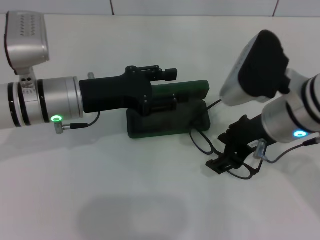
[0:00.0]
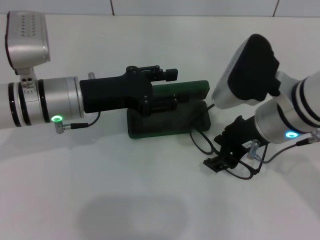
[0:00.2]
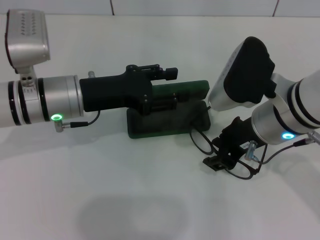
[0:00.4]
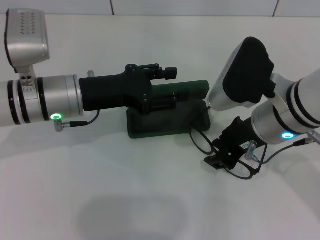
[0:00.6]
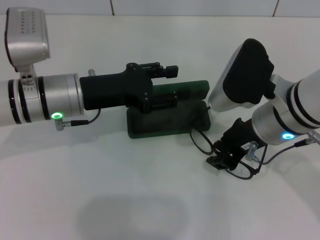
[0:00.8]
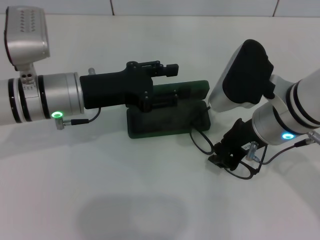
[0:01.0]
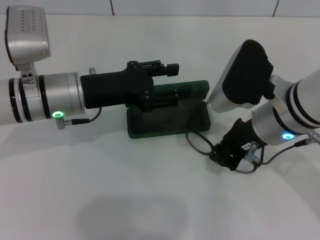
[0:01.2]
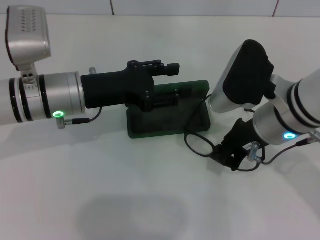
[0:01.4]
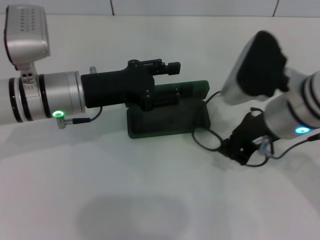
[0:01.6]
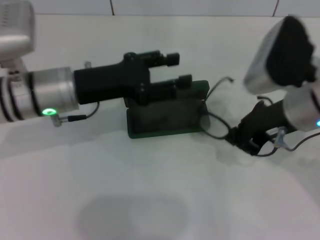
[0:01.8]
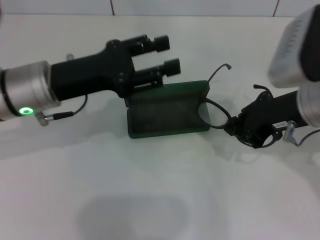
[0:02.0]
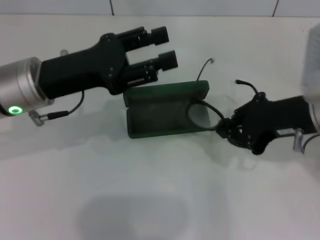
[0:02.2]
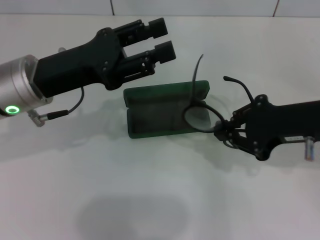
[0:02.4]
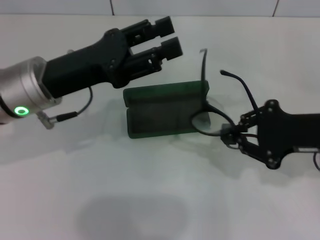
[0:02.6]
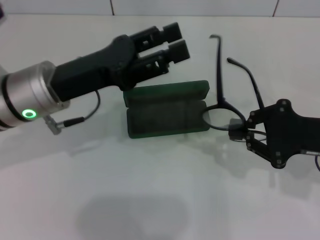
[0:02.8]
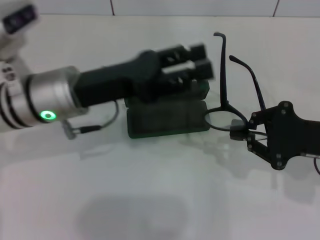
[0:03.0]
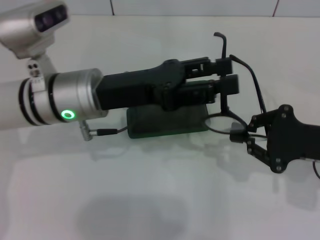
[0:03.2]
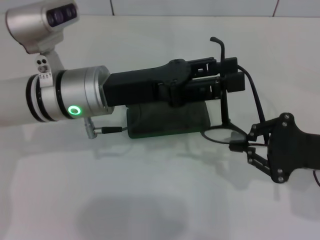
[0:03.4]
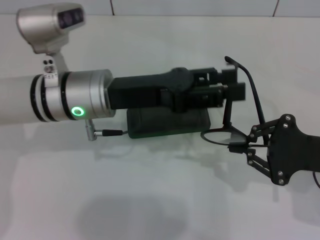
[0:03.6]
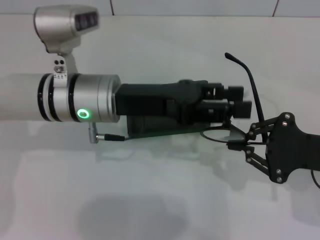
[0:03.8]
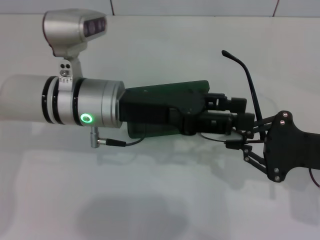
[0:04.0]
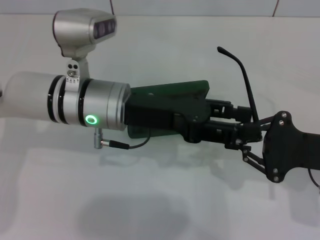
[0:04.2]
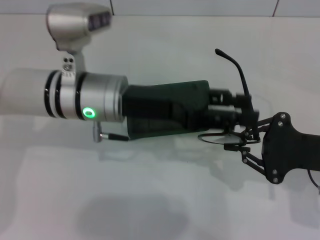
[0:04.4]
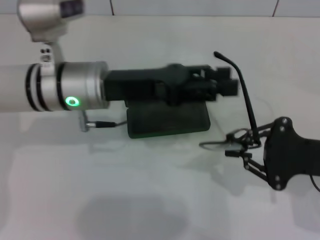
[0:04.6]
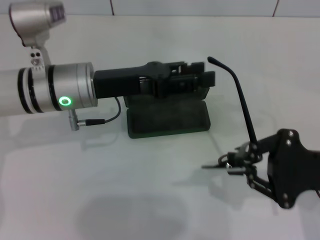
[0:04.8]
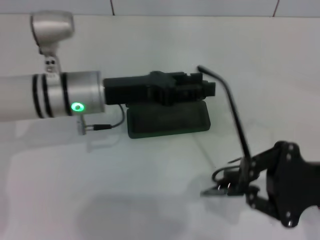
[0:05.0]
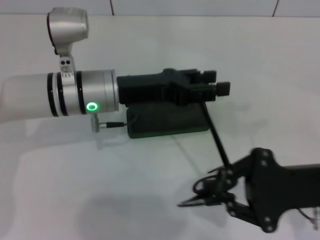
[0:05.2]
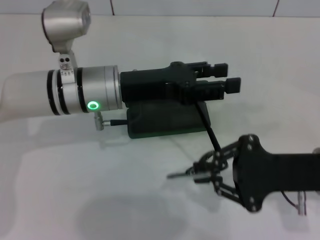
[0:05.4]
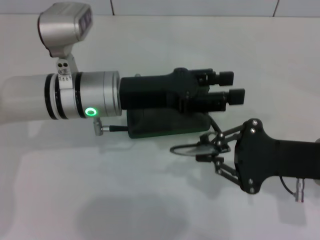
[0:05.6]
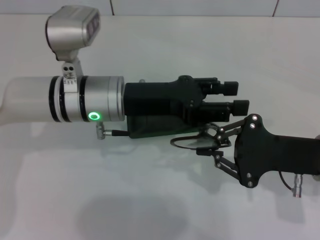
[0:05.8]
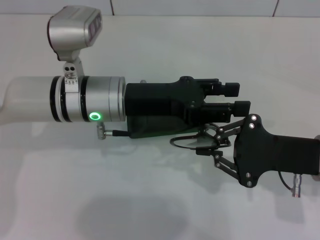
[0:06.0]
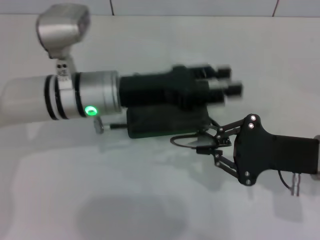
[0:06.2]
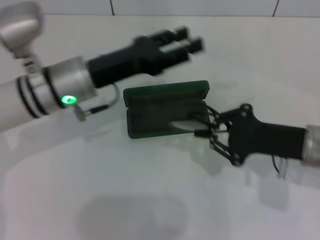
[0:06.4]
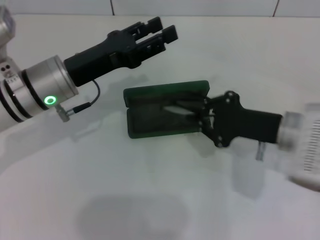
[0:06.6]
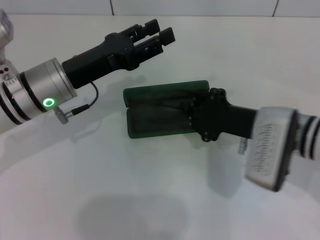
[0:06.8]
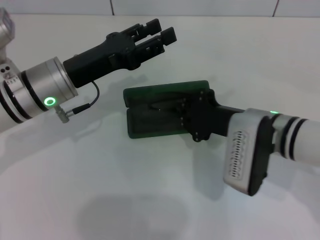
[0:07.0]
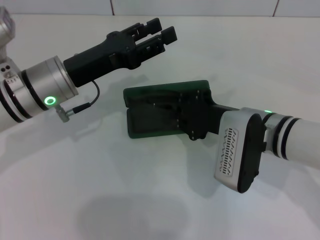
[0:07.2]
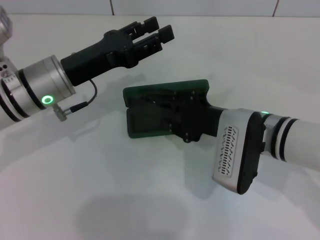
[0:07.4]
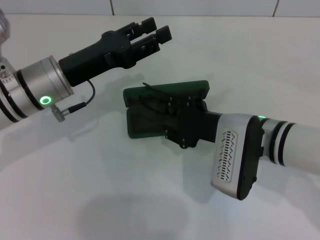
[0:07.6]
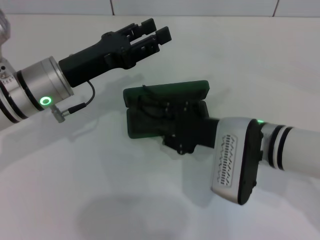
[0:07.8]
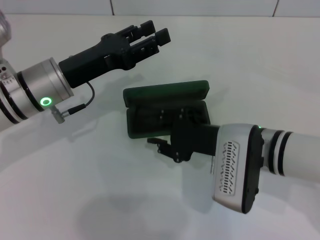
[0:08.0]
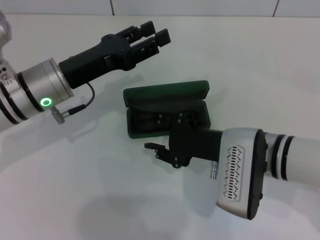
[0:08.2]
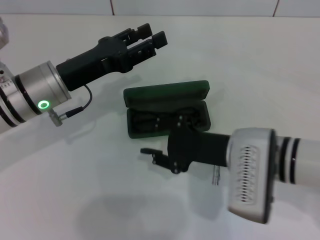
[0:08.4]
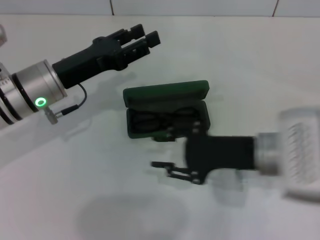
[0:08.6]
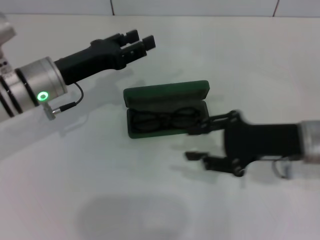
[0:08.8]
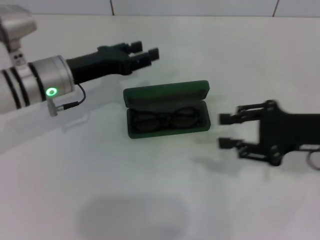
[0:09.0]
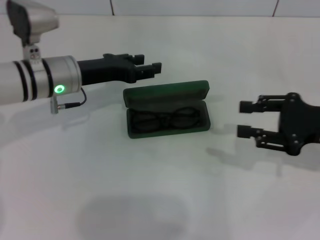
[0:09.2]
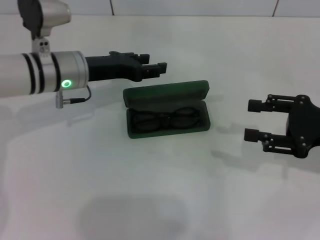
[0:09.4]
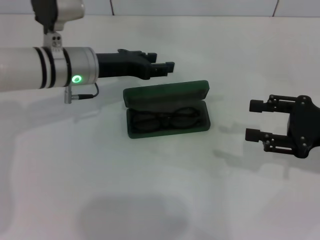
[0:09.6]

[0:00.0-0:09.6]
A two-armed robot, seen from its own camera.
Step, 1.4 to 6.0 s: Fold the frame with your left hand.
Step, 6.2 to 8.0 s: Put the glasses into the case with your right hand.
0.0 to 1.6 s: The right gripper closes its fingers.
1.6 to 3.2 s: The right gripper travels to the right and downward by about 15 cm.
4.8 to 6.4 s: The right gripper changes place by approximately 5 cm.
6.4 to 8.0 s: The right gripper shifts roughly 10 cm to the left, and opens.
8.0 to 9.6 s: The left gripper shifts approximately 5 cm forward; the right gripper heads to the right, covering roughly 20 cm.

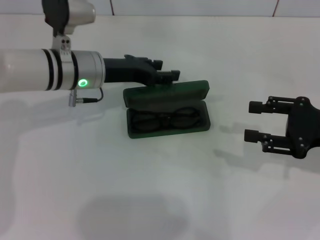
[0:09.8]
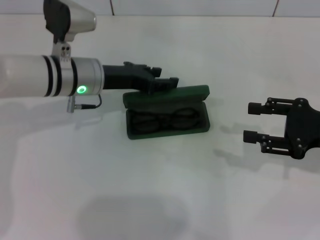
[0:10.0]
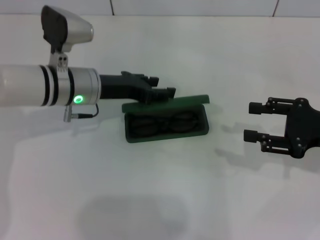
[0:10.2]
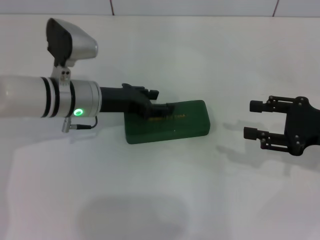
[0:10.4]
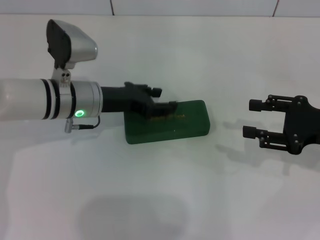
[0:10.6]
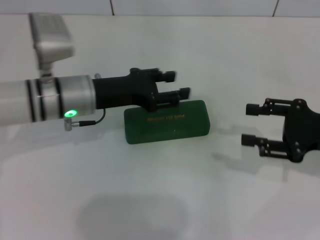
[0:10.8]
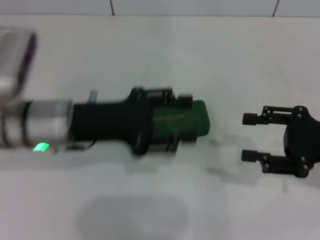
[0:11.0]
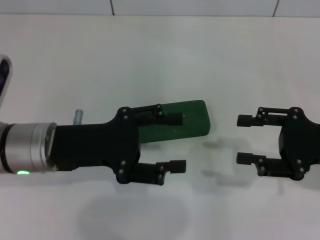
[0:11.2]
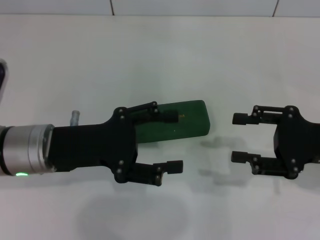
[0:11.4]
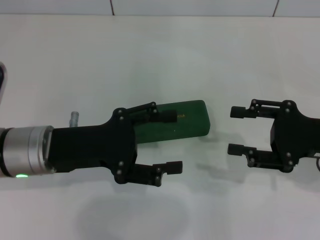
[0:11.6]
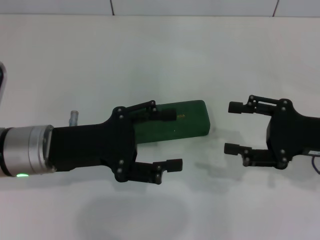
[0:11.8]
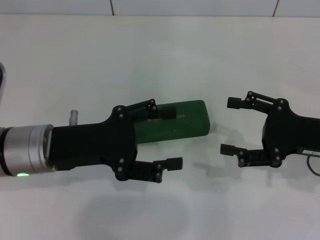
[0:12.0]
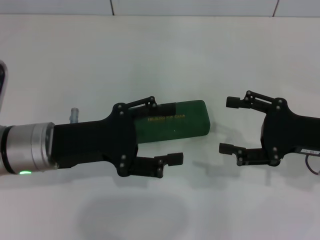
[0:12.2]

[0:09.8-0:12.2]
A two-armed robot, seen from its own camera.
9.8 to 11.0 s: The left gripper travels backward by about 10 cm.
11.0 to 12.2 s: The left gripper opens.

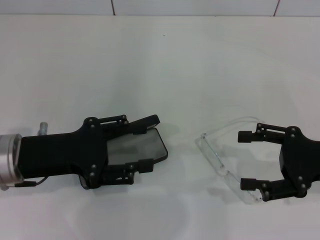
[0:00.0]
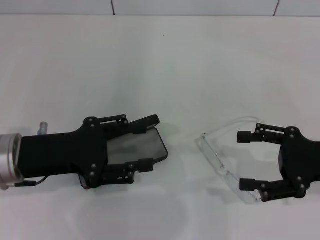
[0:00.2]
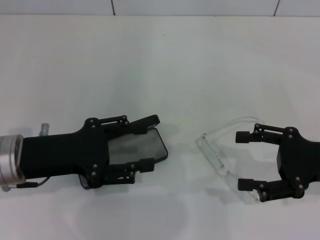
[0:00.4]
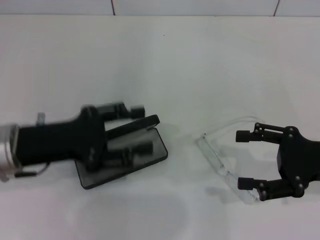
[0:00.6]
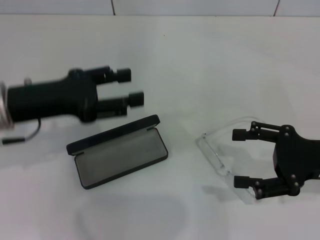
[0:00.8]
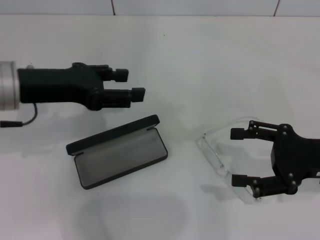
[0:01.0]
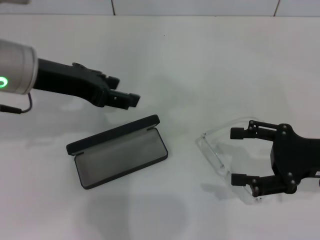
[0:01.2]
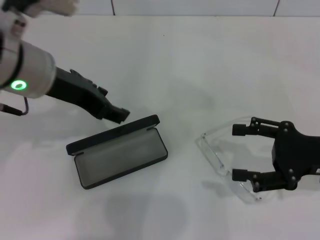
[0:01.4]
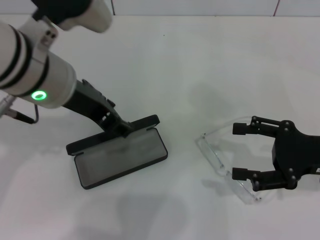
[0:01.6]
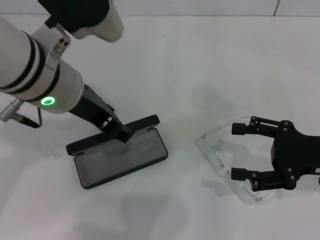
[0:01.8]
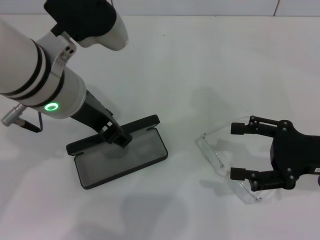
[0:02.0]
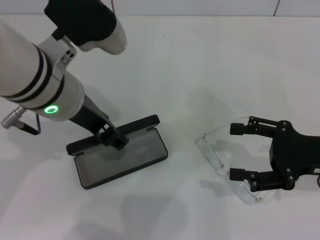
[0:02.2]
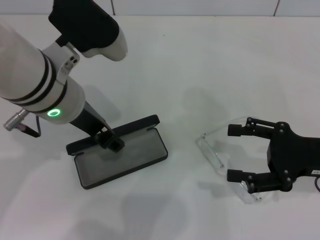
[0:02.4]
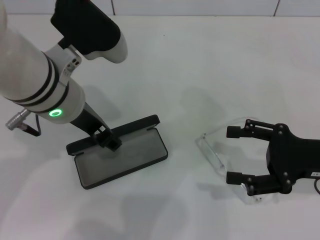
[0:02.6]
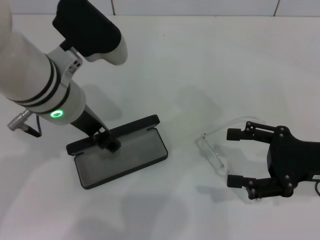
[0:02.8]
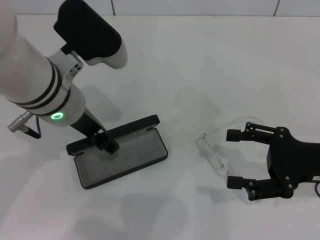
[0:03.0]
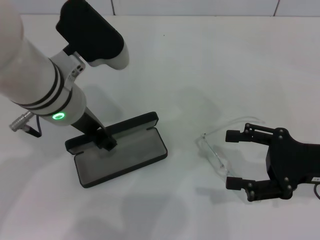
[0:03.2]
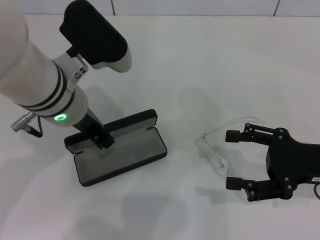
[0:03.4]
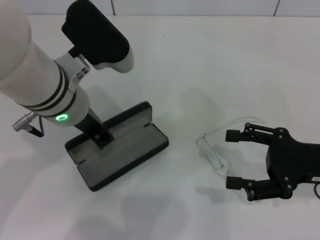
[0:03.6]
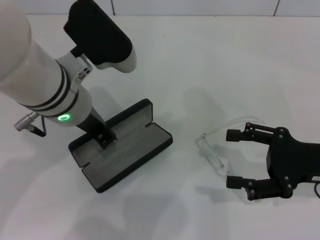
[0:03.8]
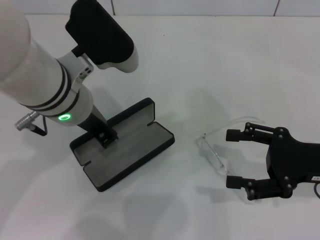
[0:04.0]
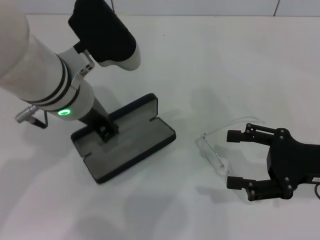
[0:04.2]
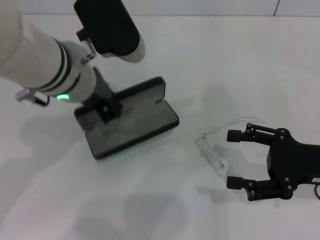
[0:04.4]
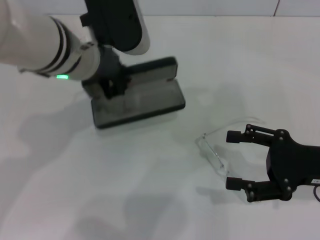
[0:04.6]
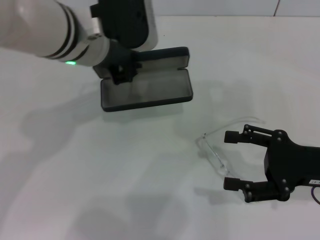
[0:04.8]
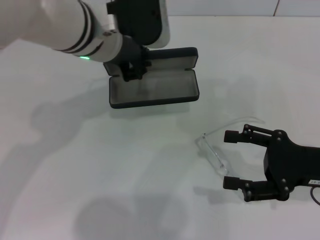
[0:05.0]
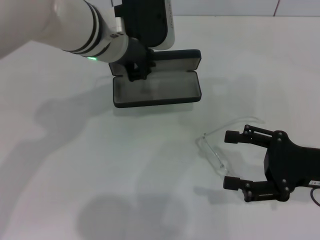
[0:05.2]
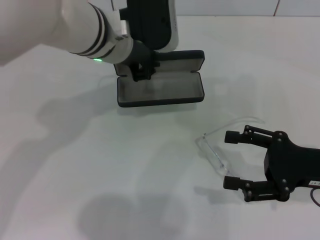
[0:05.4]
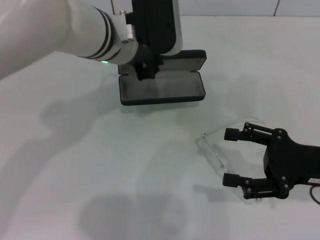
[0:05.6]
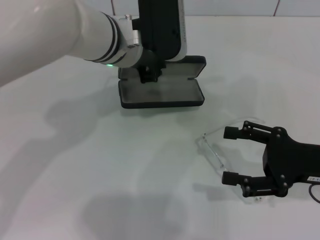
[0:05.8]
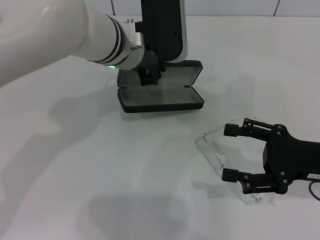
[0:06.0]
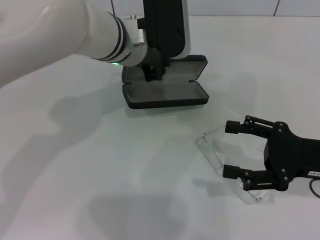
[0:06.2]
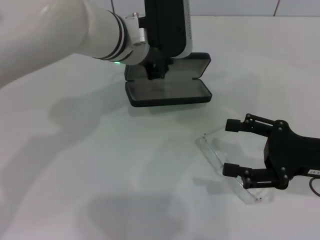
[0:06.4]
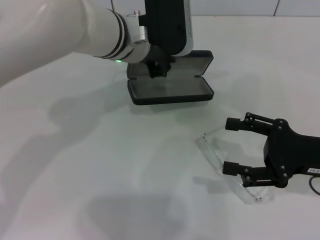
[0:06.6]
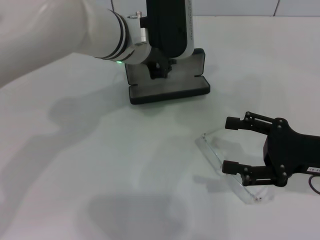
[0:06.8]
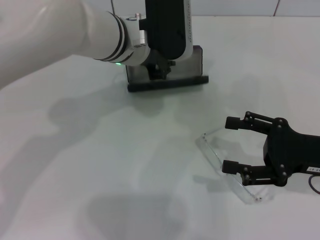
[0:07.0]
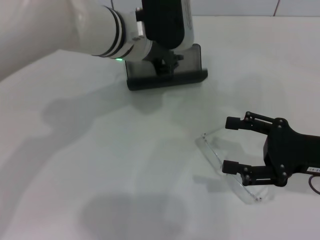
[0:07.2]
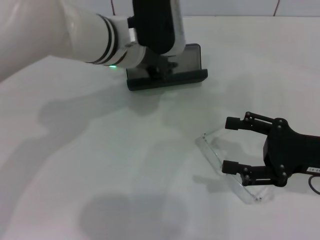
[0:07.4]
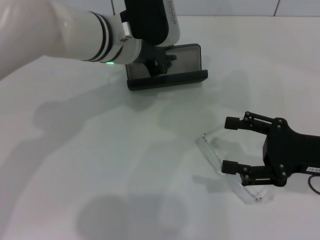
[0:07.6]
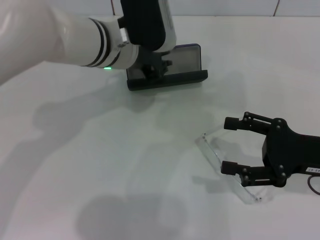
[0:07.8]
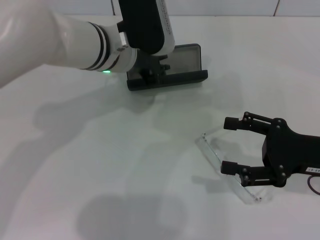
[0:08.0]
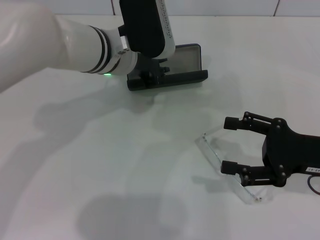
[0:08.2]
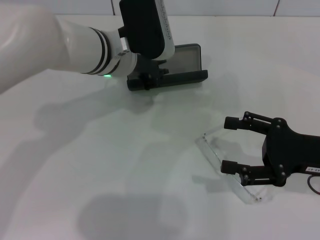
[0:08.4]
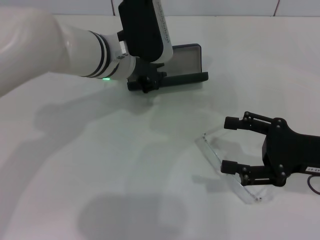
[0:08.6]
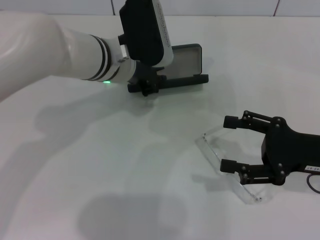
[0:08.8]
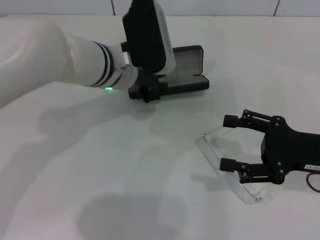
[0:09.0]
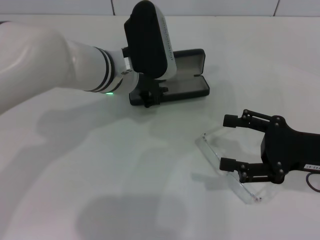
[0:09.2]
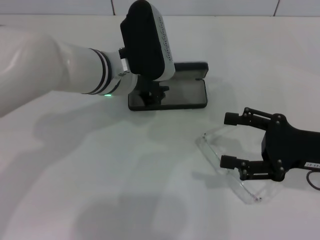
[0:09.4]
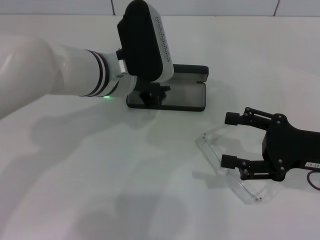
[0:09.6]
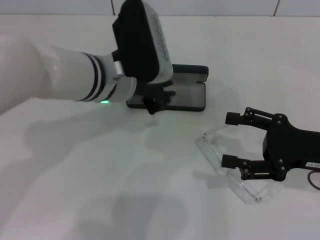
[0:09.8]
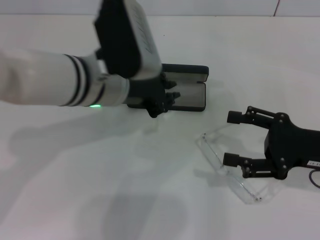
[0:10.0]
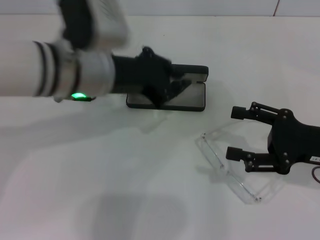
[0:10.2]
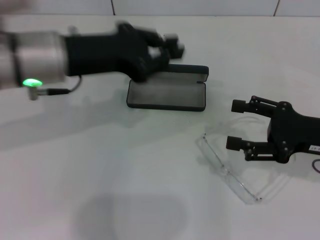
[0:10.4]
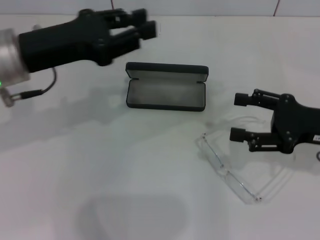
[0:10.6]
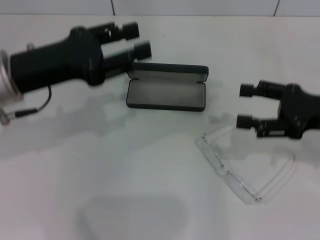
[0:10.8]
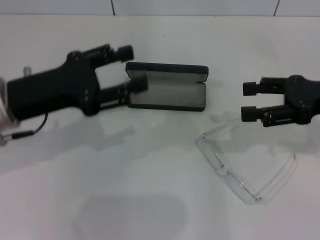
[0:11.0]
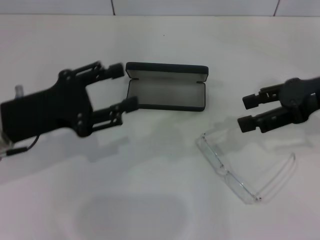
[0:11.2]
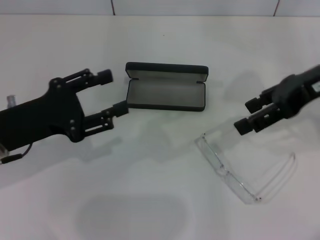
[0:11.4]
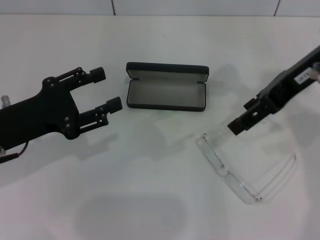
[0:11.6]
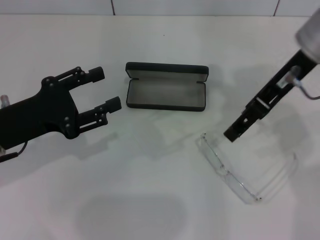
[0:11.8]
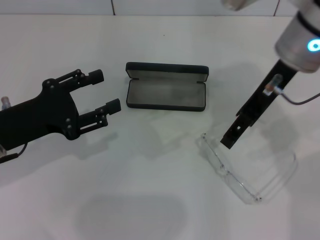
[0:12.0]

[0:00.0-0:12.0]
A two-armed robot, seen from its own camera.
Step, 0.0 to 3.2 s: Grab the glasses case with your left hand.
Step, 3.4 to 9.6 s: Place the glasses case in the center of the table with your left hand.
0.0 to 1.6 s: The left gripper shifts roughly 15 cm upward, to the right and forward.
1.6 to 3.0 s: The grippers move only a little.
3.0 to 4.4 s: The left gripper closes its fingers.
4.4 to 6.0 s: The left gripper moves forward, some 5 cm.
6.0 to 9.0 s: The grippers stay close to where they were, moving slightly.
9.0 to 10.4 s: The left gripper shifts about 15 cm to the left, upward and backward.
10.4 to 12.0 s: The left gripper shifts approximately 15 cm downward, to the left and backward, and opens up; the right gripper moves upward, to the left and forward, approximately 20 cm.
